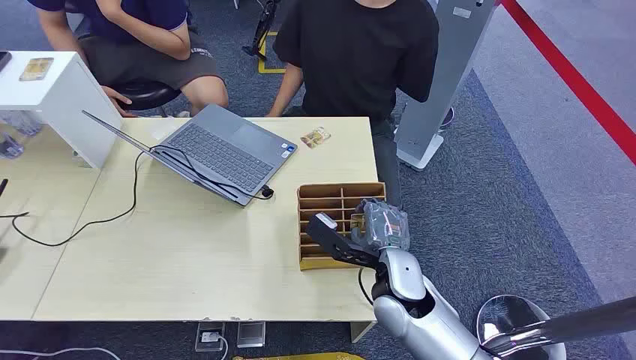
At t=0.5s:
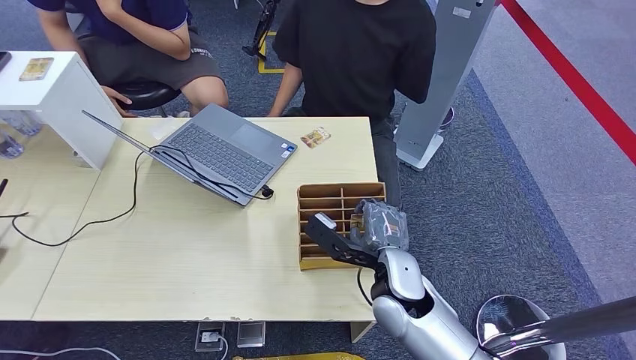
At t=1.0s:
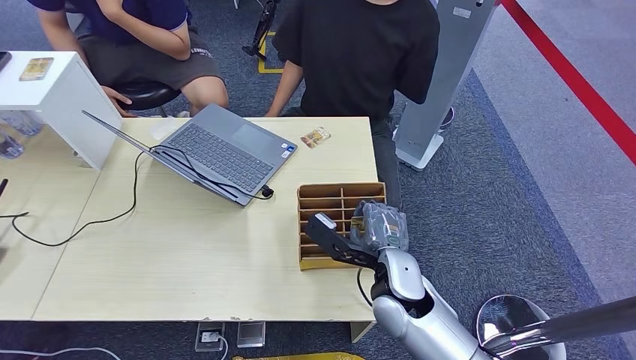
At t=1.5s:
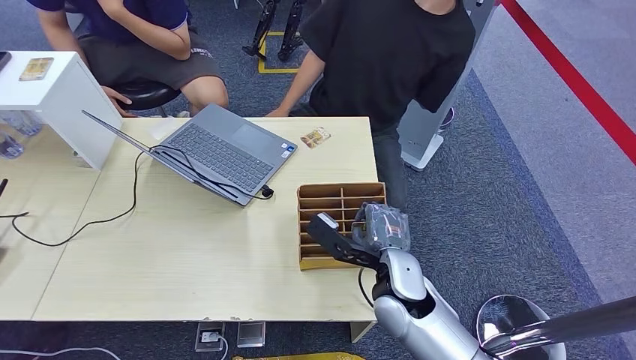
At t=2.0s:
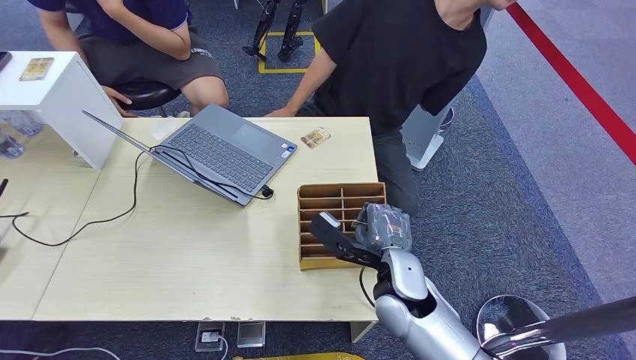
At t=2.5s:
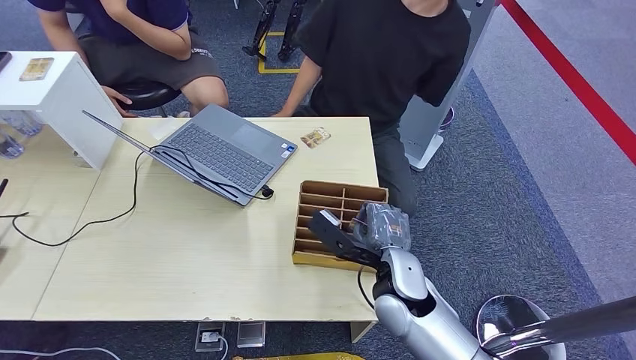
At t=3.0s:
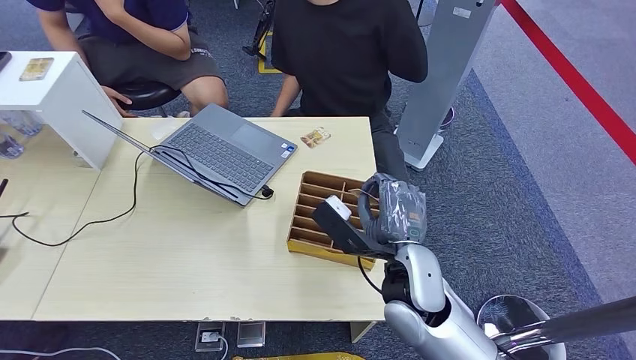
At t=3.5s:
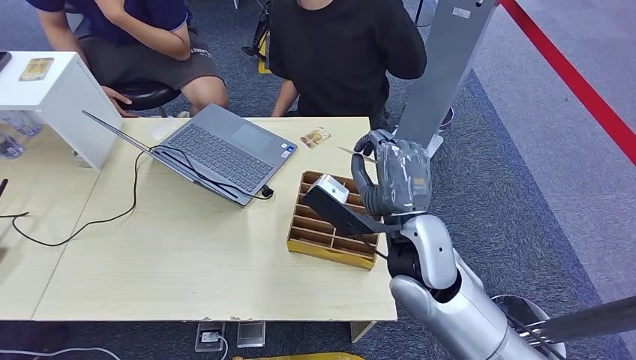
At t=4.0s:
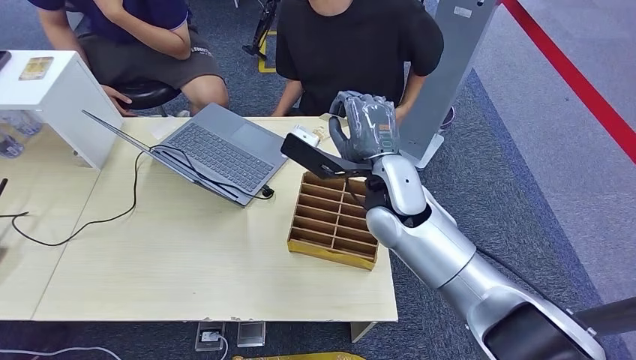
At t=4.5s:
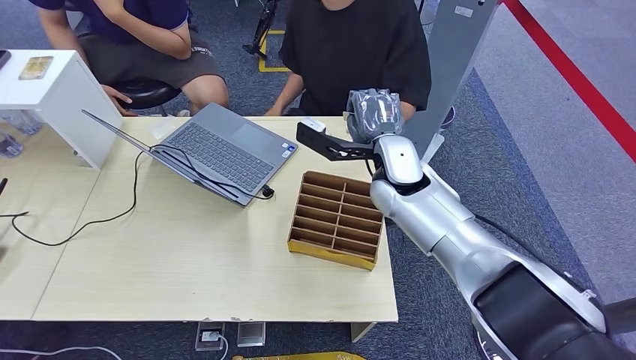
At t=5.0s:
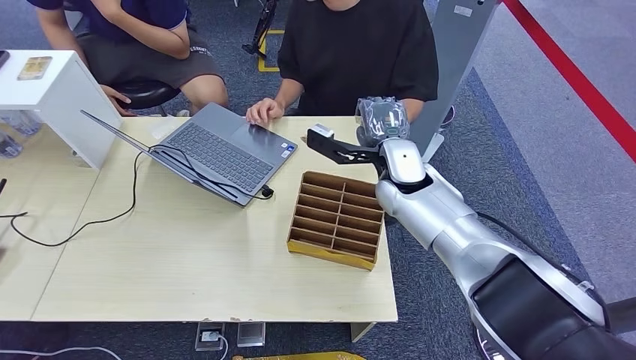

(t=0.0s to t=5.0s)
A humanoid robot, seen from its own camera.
Step, t=0.0s - t=3.0s: Pick up the key card from the card box.
Step, t=4.0s - t=5.0s: Hand the key card to the target.

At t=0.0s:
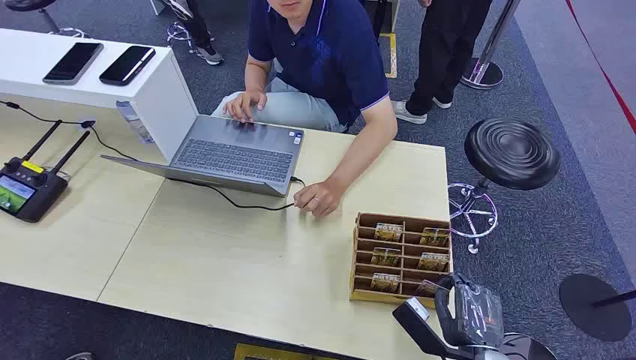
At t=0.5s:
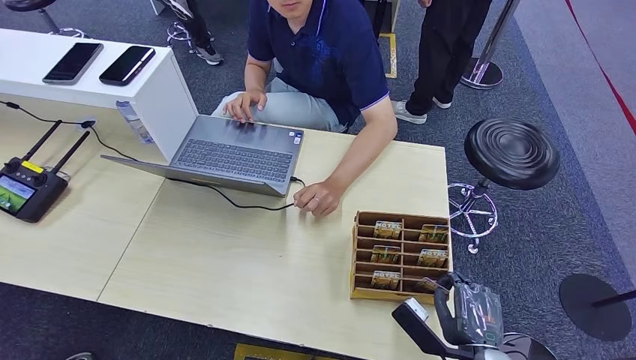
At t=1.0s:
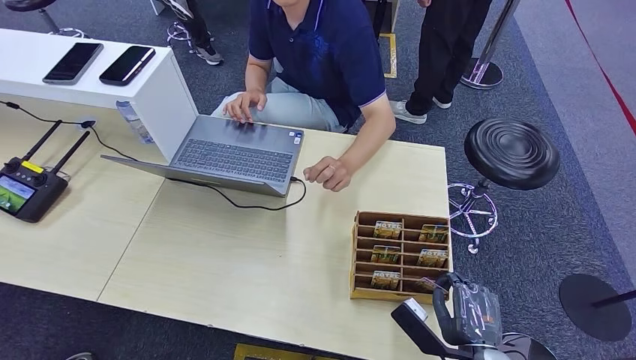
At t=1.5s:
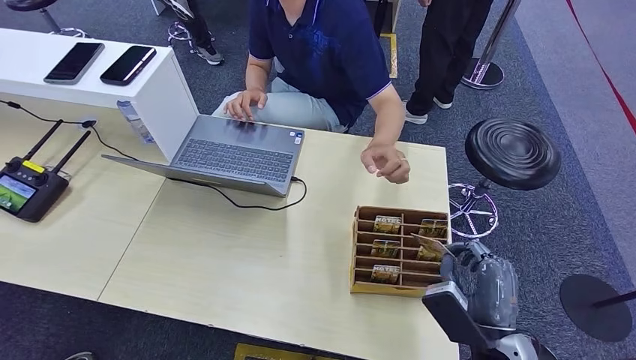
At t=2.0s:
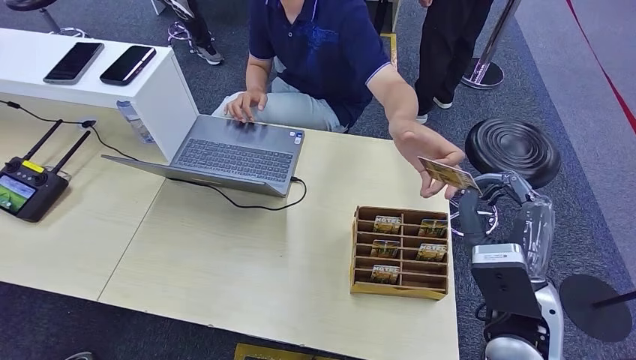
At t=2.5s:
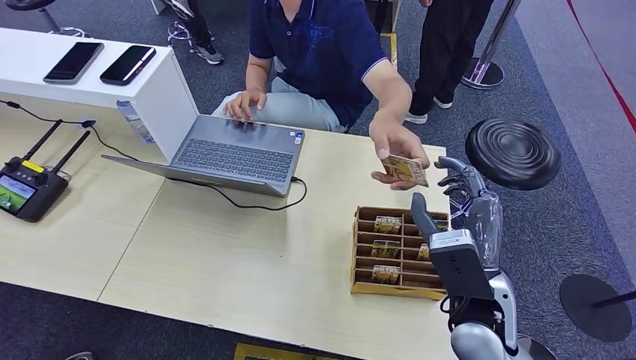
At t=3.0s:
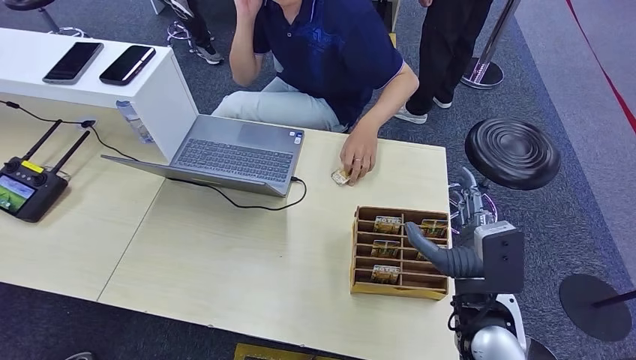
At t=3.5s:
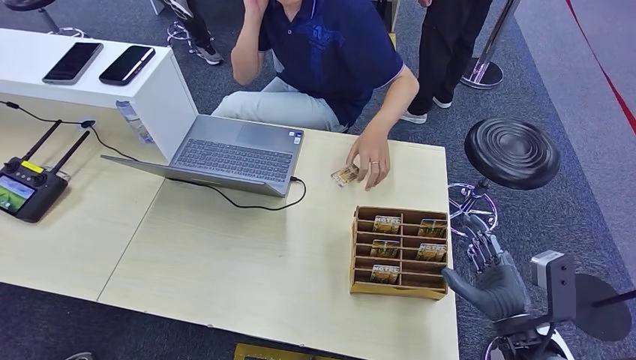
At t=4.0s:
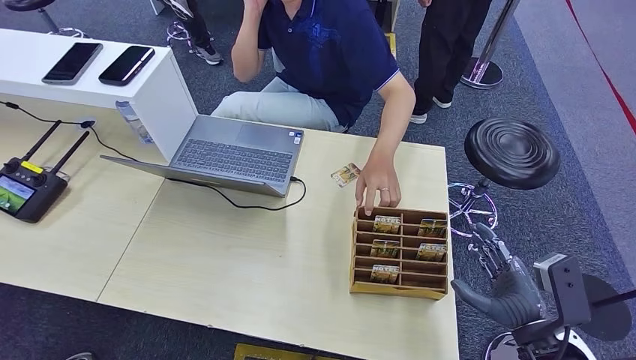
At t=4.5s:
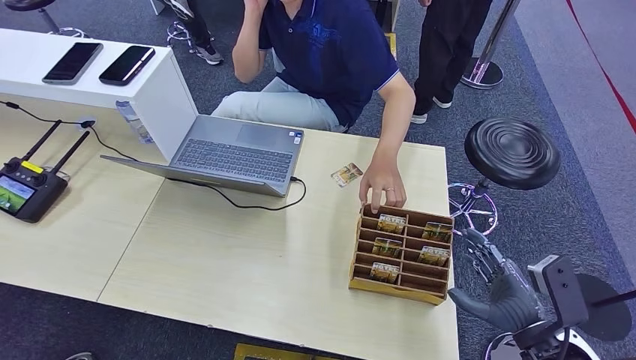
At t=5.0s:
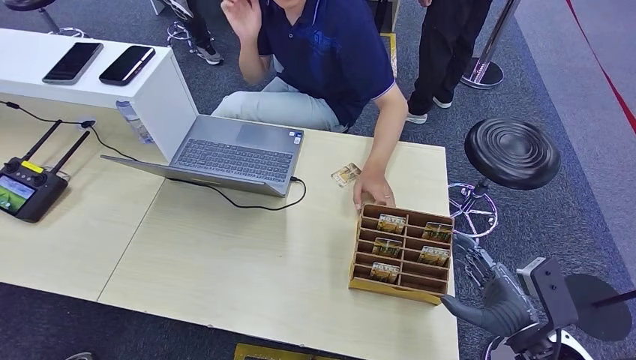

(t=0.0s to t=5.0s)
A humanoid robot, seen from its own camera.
Step, t=0.0s - t=2.0s: Pick up the key card from the card box.
Step, t=2.5s - t=5.0s: Hand the key card to the target.
t=2.5s - t=5.0s: The right hand heads to the right, downward and backward, covering about 15 cm.
